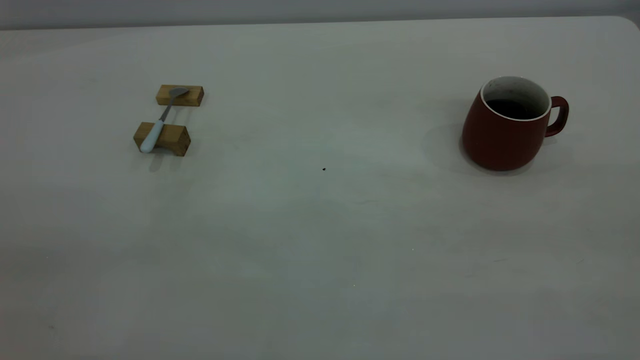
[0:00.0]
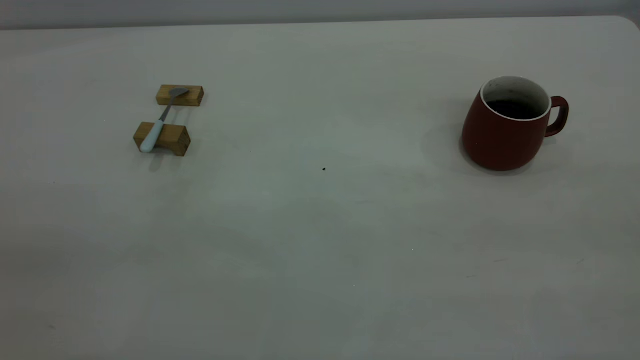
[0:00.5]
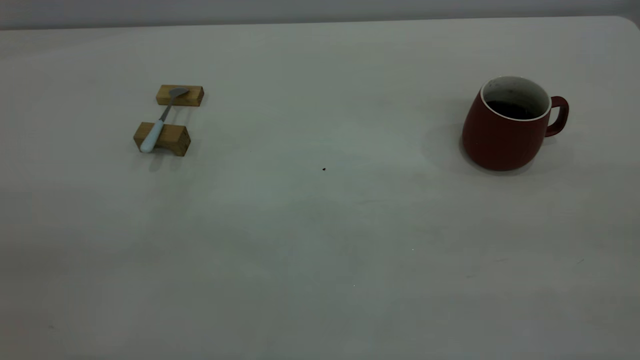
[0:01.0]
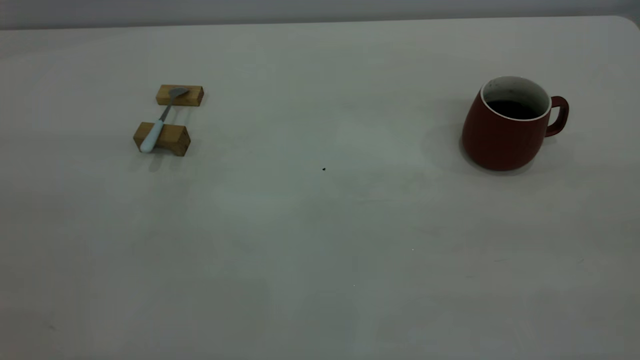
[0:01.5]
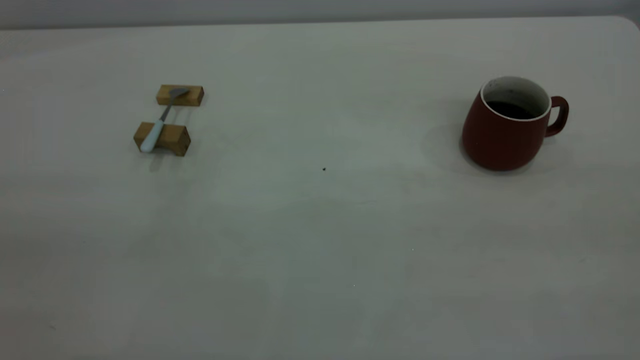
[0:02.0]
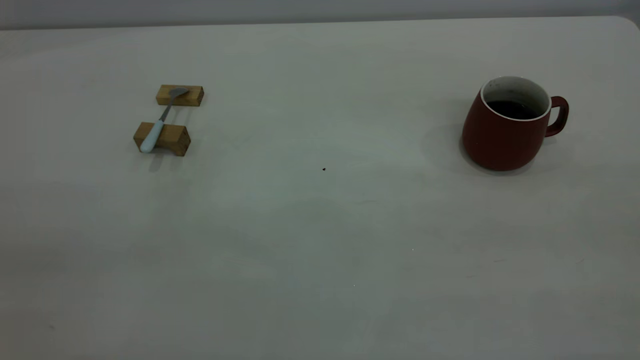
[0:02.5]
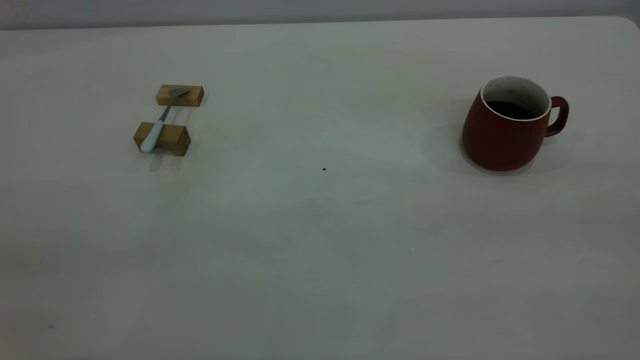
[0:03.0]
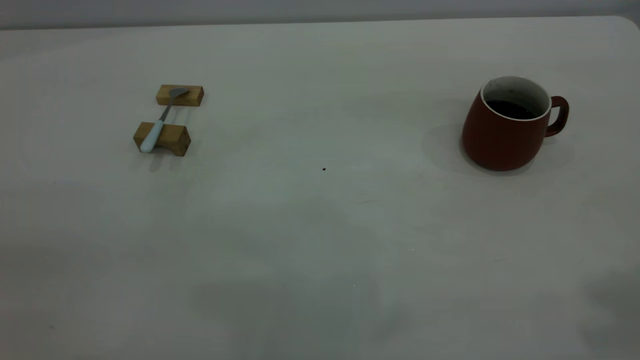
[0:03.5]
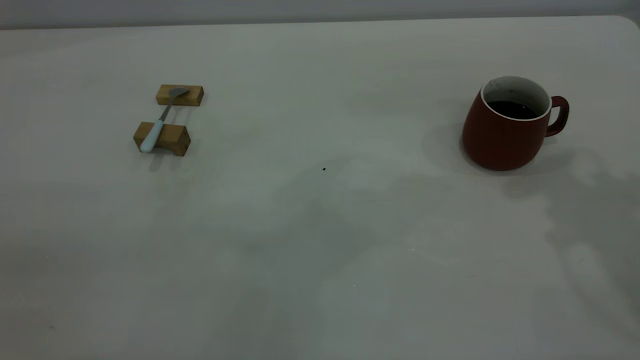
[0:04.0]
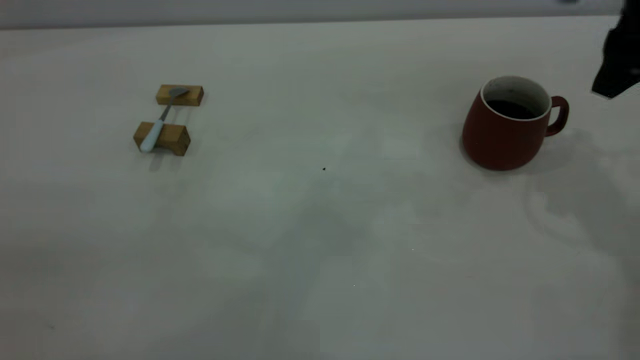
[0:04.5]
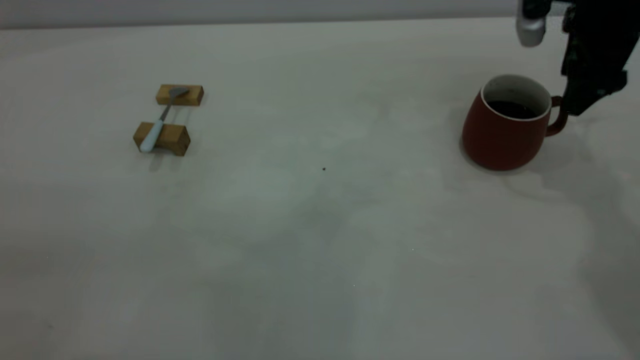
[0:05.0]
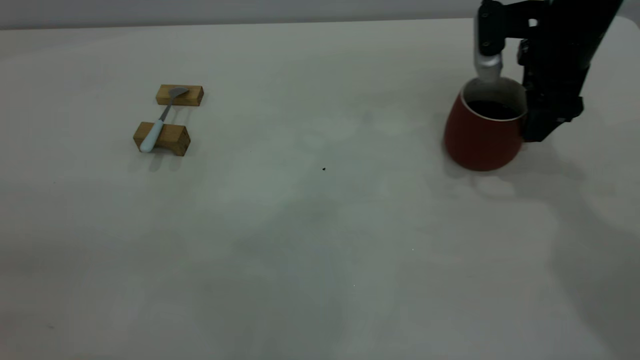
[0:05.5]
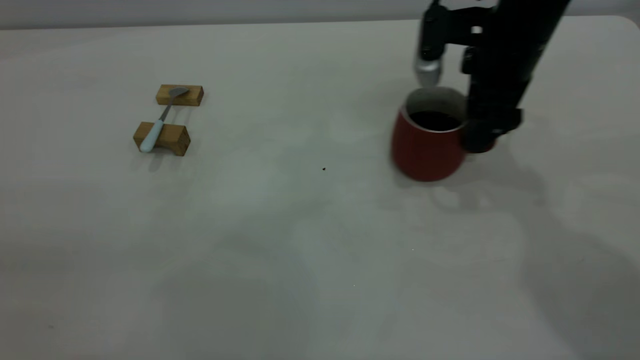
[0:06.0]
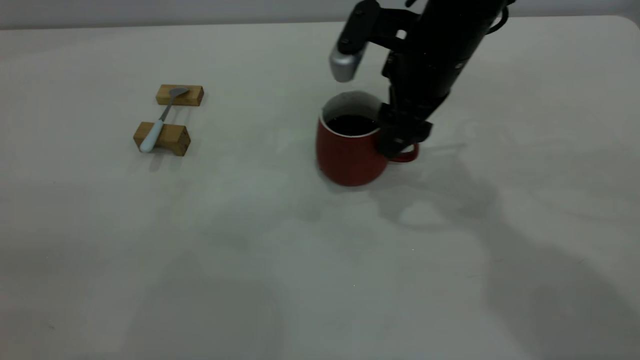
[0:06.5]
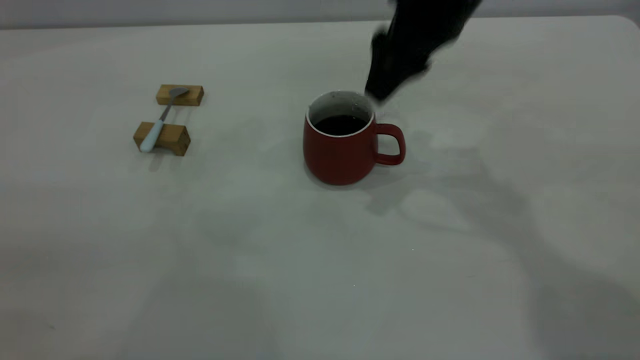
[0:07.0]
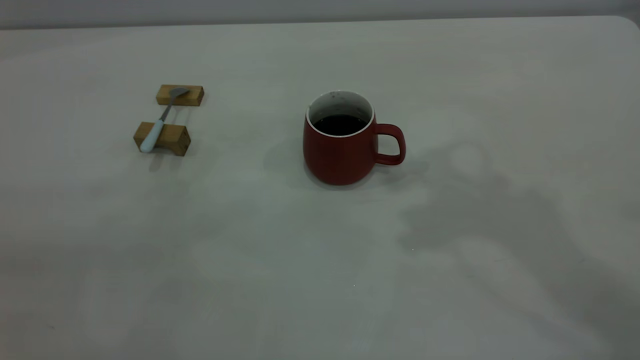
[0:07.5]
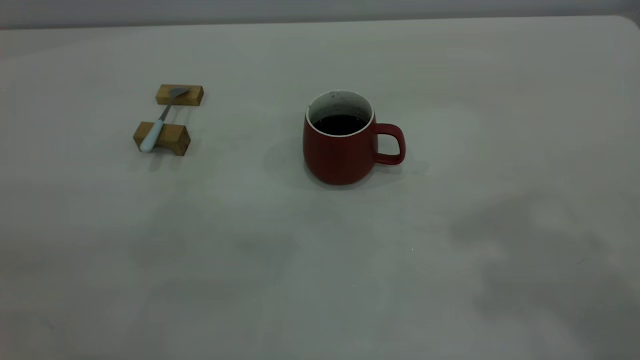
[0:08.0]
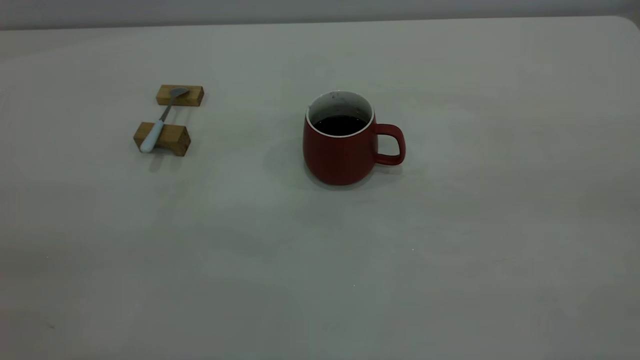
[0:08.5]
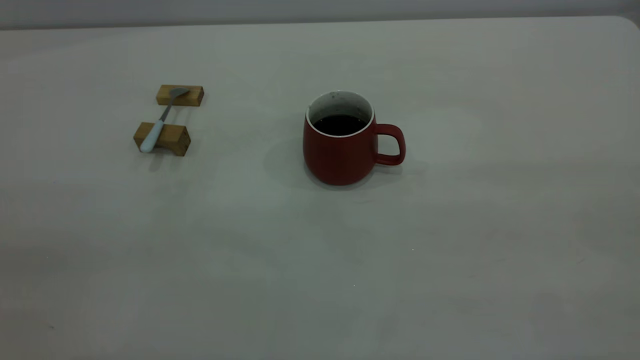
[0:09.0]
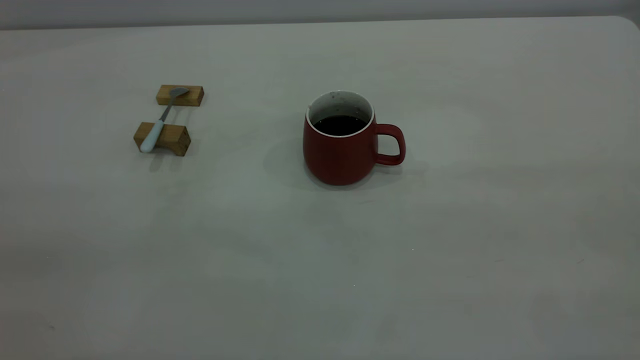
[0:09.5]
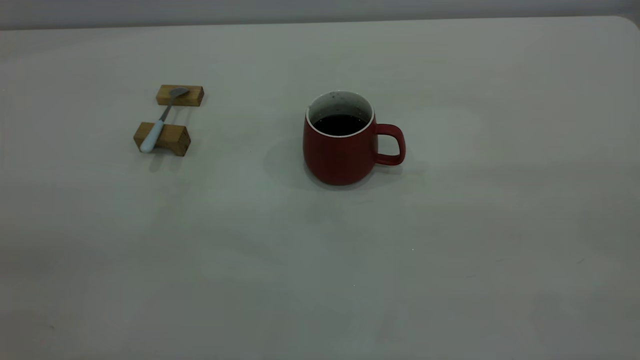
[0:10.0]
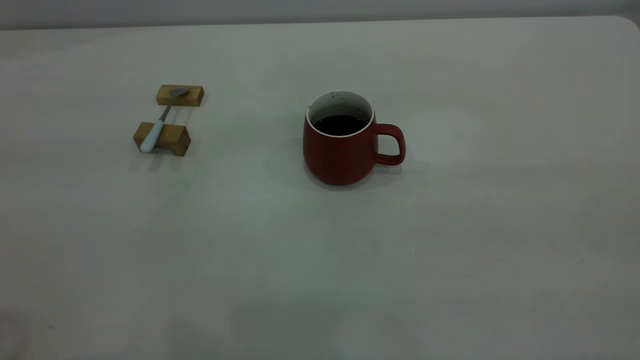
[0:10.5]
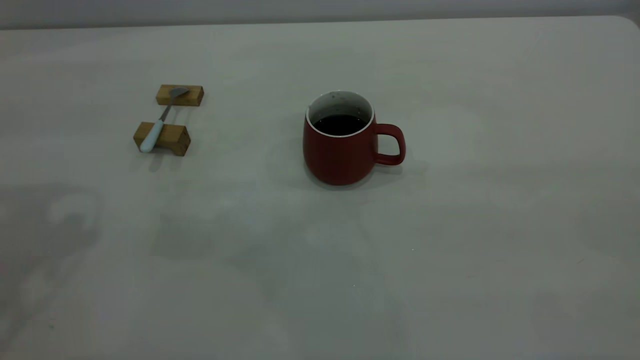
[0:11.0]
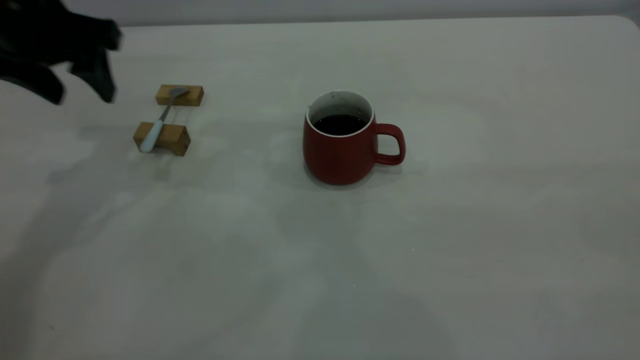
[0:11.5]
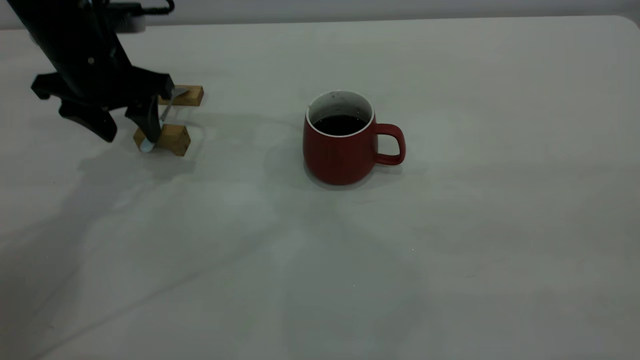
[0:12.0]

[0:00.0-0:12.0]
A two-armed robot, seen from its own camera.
Step, 0:00.0 to 0:07.0: Move the cup with coffee to the center of view.
0:04.0 to 0:06.0: The right gripper heads downward, to the left and forward, covering approximately 25 cm.
0:06.0 to 0:08.0: The right gripper travels upward and backward by approximately 35 cm.
0:10.0 to 0:12.0: The left gripper travels forward and downward by about 50 cm, and opens up.

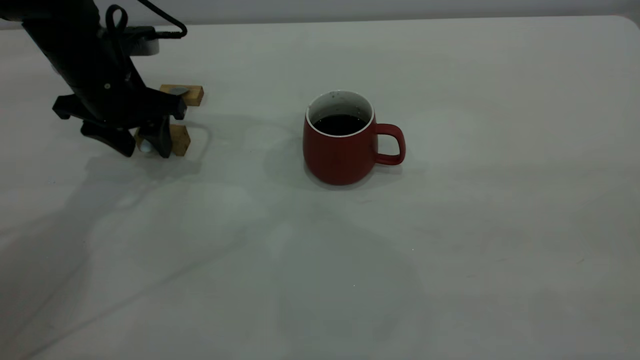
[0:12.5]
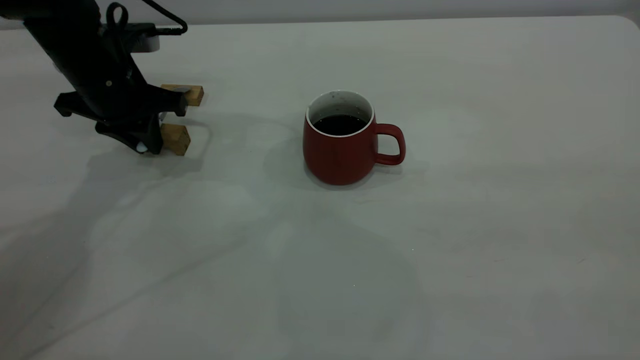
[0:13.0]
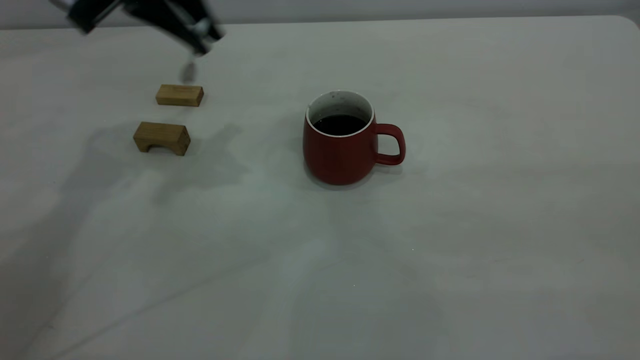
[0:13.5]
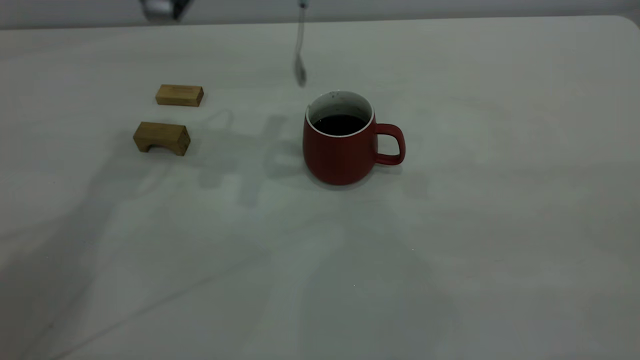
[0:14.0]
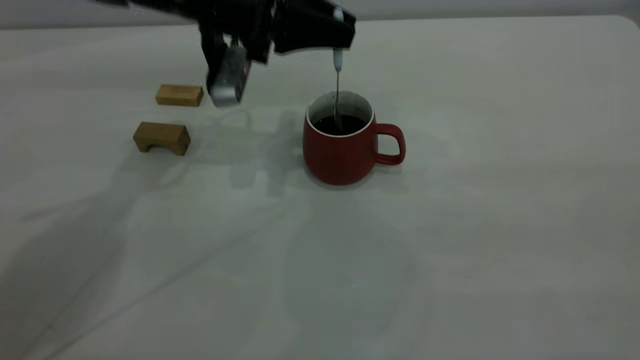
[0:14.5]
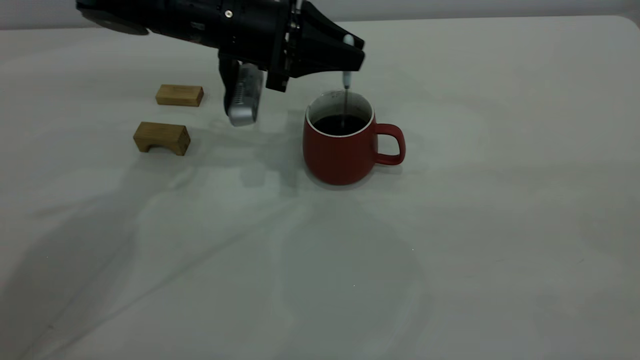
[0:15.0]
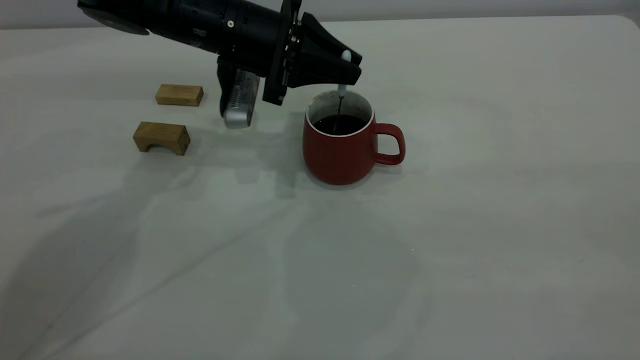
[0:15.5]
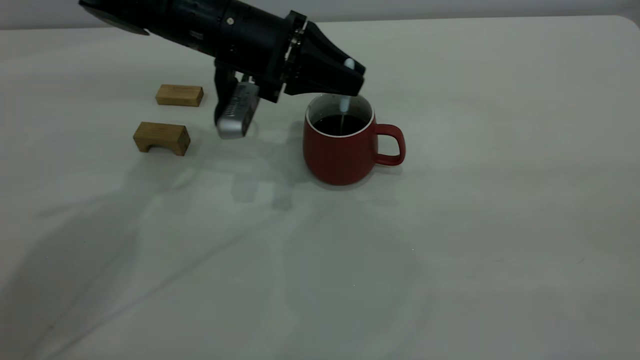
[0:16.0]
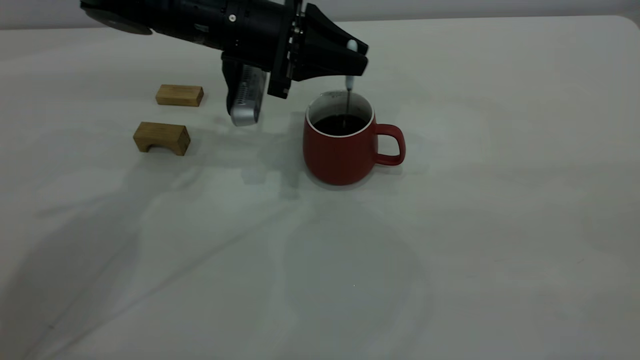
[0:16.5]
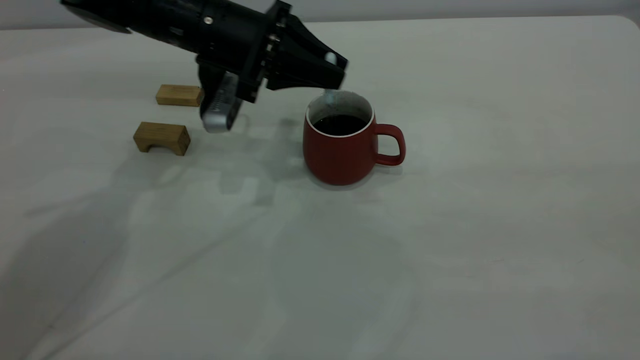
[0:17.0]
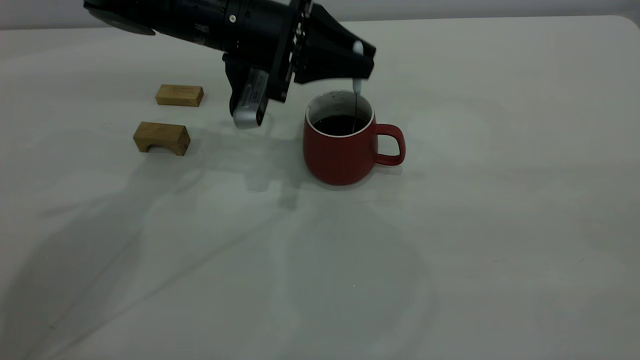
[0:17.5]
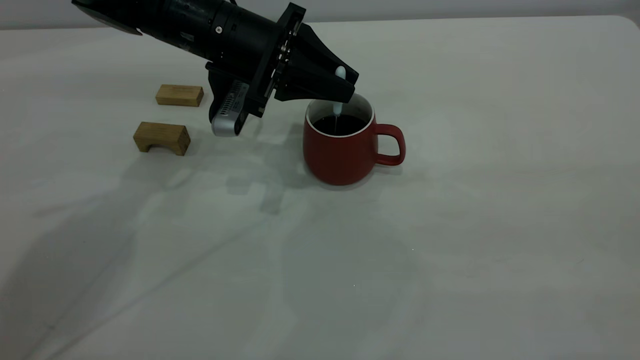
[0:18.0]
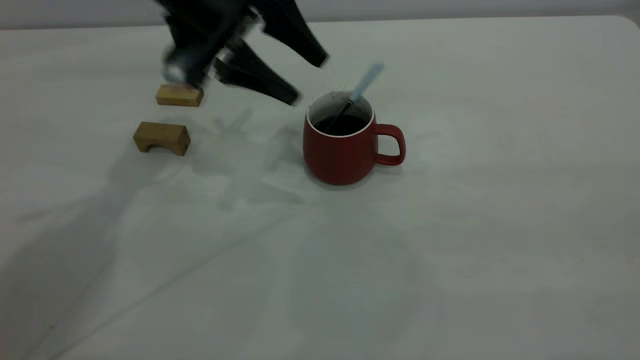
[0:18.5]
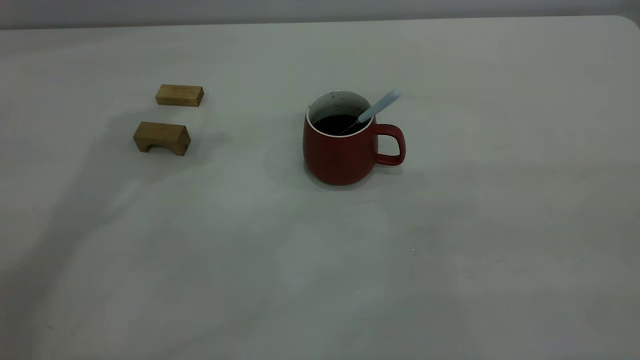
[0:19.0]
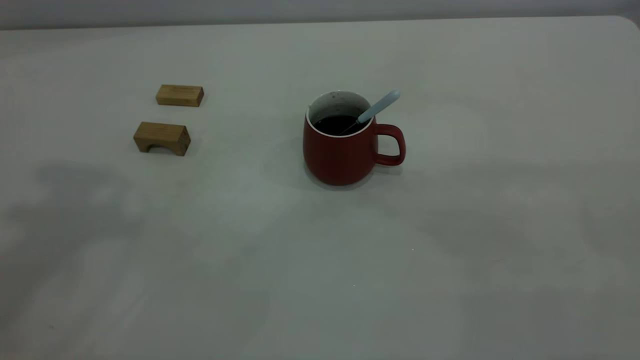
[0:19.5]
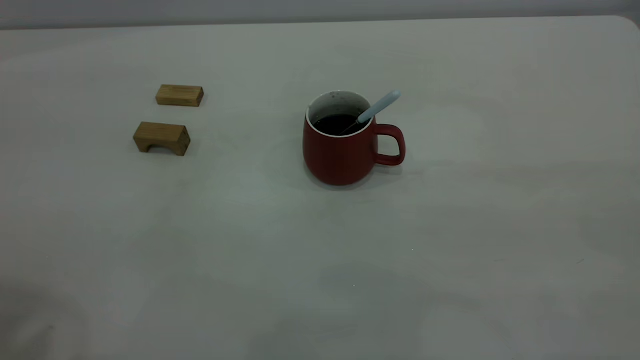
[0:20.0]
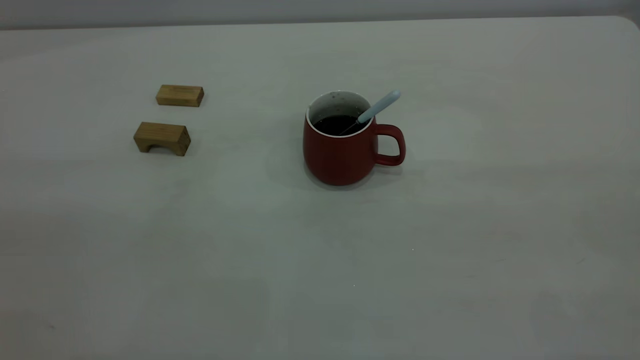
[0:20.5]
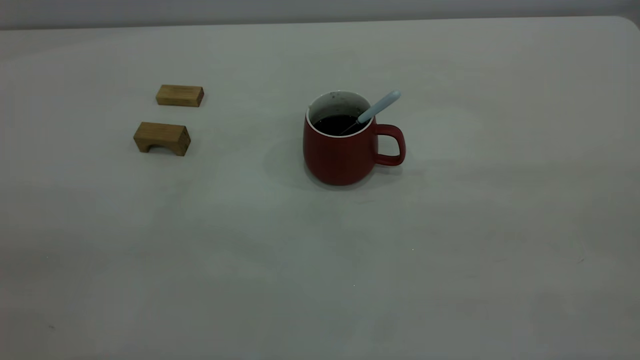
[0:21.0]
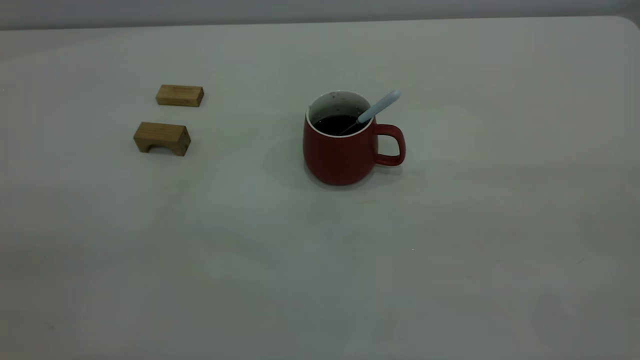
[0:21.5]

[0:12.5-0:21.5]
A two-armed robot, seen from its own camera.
Step, 0:13.5 to 0:18.5: Stir the coffee in the cup.
0:12.5 to 0:14.5: The left gripper moves to the right, about 10 cm, reaches some 15 cm upward, then returns, and closes.
0:14.5 to 0:17.0: The grippers move only a little.
0:17.0 to 0:19.5: The left gripper is displaced upward by some 40 cm, and opens its fingers.
